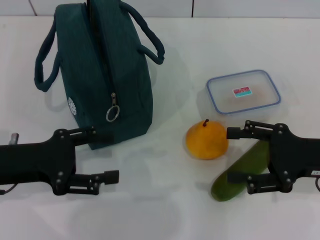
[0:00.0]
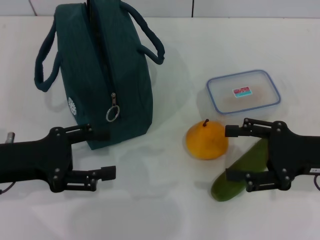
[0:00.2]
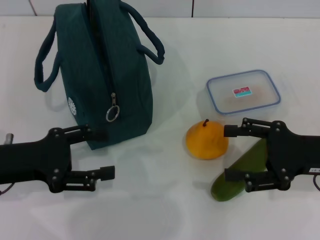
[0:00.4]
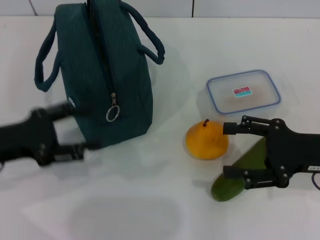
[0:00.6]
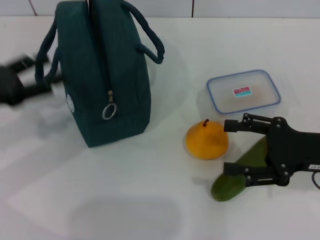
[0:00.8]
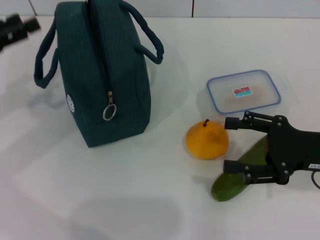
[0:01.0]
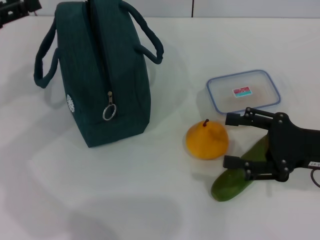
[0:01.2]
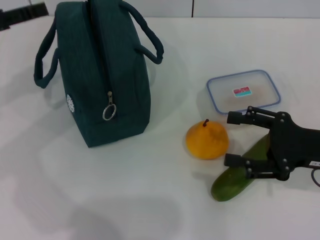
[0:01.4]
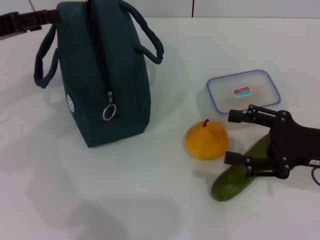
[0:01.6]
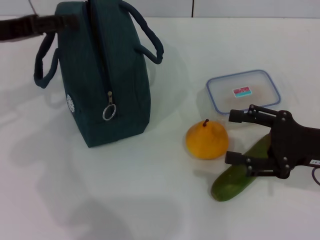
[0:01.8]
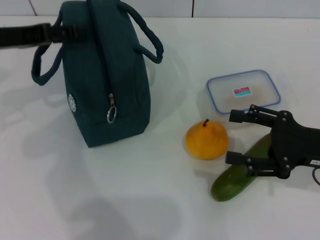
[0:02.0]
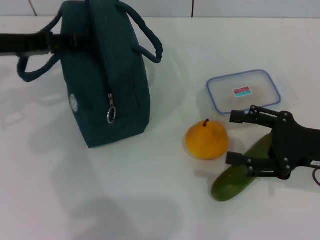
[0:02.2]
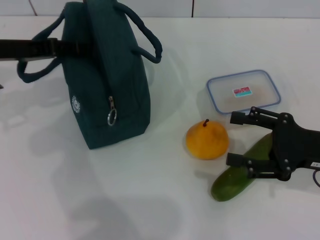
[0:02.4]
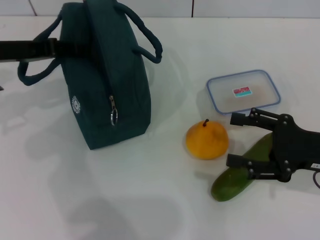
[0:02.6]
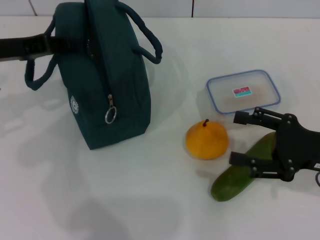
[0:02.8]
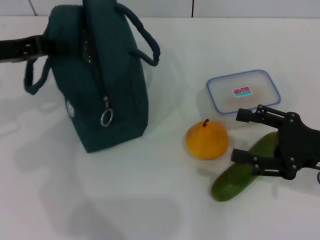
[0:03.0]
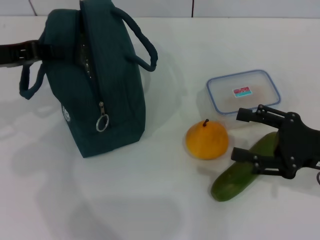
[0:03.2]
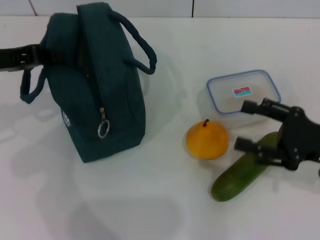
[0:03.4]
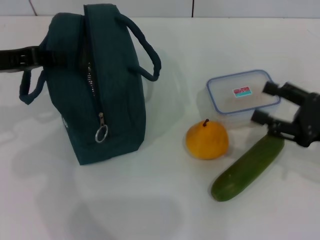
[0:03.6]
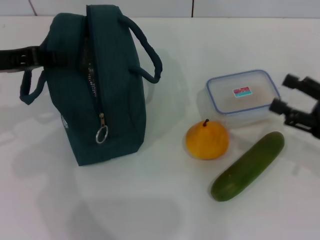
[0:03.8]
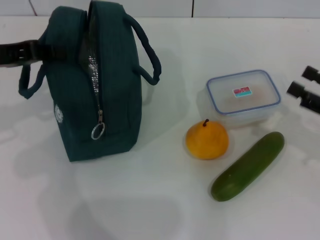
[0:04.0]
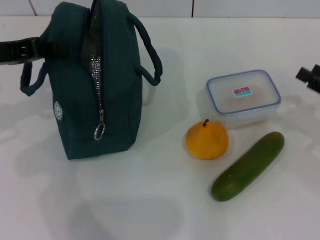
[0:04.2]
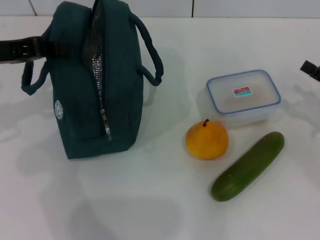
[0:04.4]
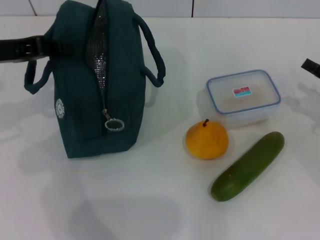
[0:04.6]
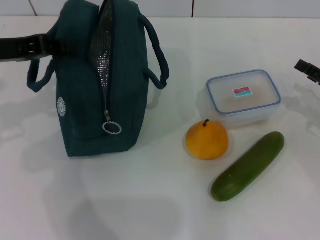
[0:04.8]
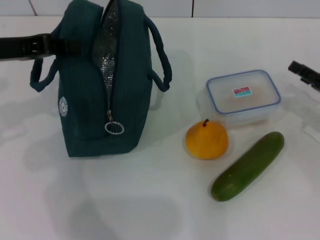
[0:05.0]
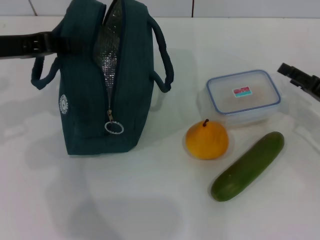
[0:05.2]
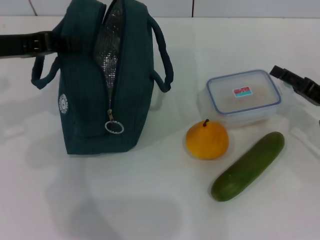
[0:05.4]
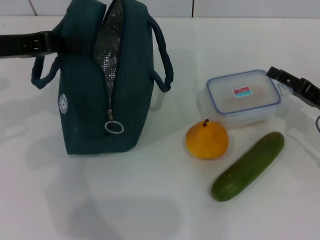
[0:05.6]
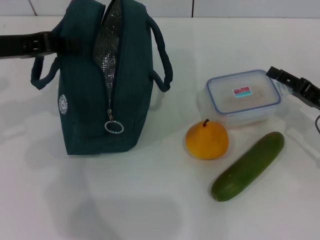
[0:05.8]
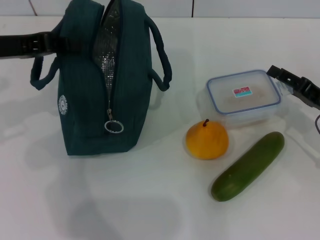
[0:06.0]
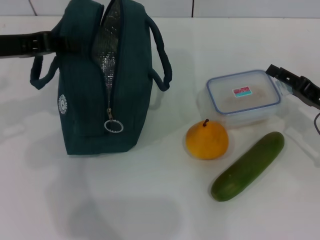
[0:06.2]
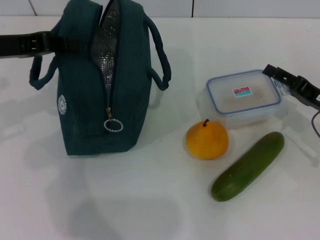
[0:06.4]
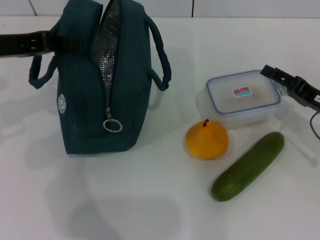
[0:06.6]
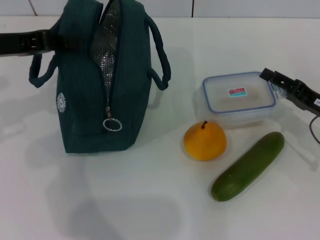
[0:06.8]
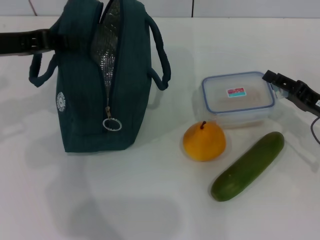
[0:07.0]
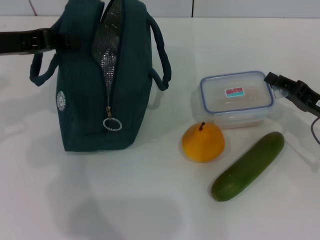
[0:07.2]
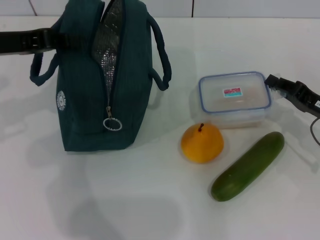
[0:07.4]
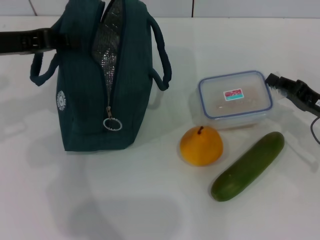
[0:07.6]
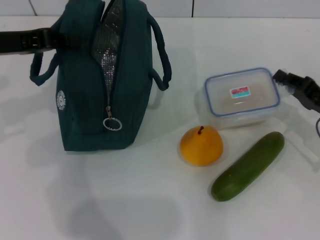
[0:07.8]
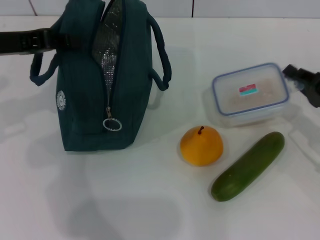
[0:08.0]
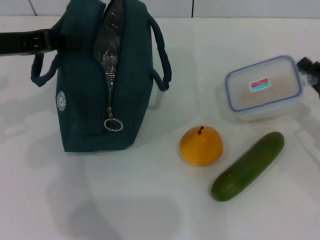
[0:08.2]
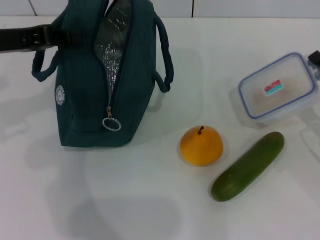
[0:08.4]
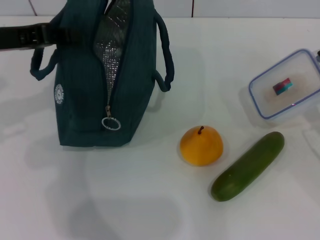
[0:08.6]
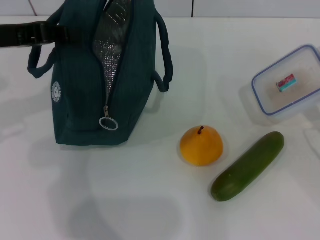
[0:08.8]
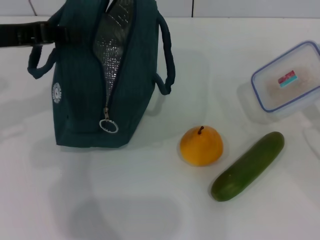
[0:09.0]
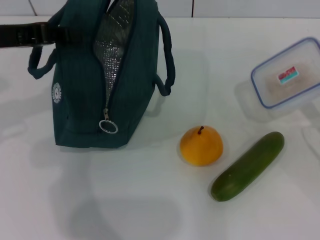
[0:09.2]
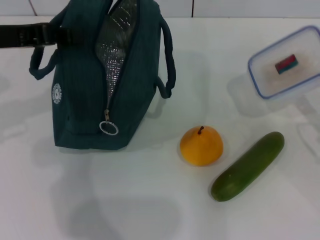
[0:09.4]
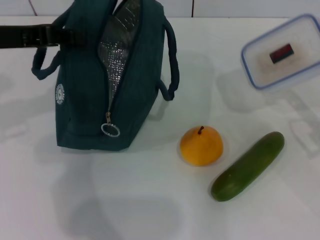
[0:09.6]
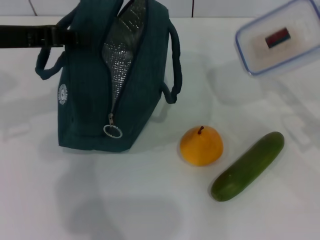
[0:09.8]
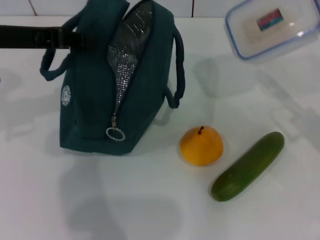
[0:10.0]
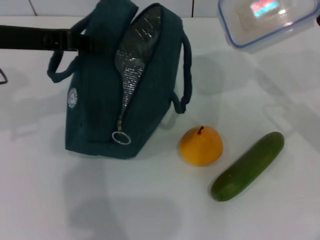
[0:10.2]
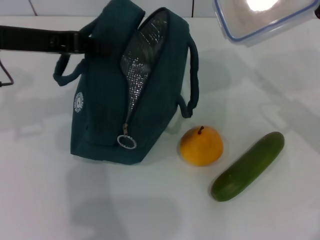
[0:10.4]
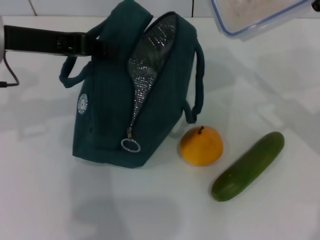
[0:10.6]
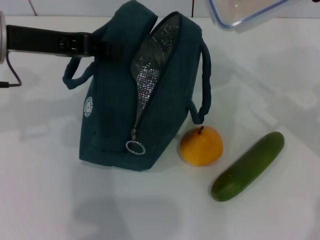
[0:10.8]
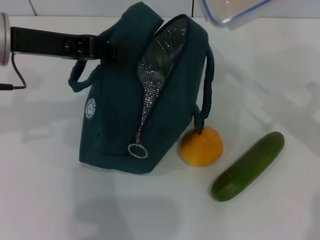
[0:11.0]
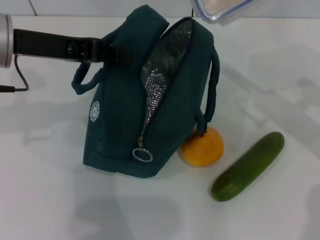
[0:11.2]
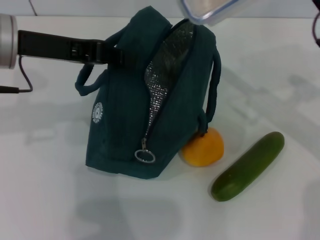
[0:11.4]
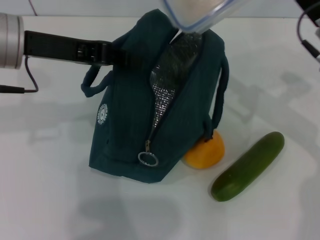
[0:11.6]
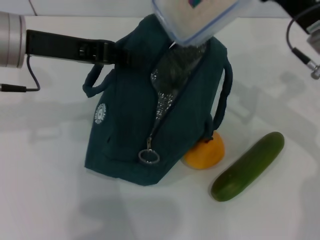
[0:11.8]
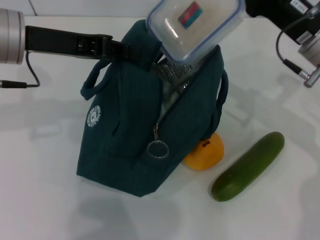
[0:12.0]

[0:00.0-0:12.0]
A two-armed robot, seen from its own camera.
Step, 0:00.0 to 0:03.6: Hold the lunch bag with your left hand.
Step, 0:03.8 to 0:07.4: Pick up the lunch box with your right hand.
0:00.0 to 0:01.6: The left gripper heads forward and upward, covering approximately 15 cm.
0:01.6 to 0:03.0: The left gripper closes its fingers.
0:03.0 to 0:04.4: The right gripper heads to the right, covering some 5 cm.
0:04.4 to 0:06.0: The right gripper moves approximately 5 cm.
0:06.0 to 0:07.6: The right gripper closes its fingers.
0:09.0 to 0:10.4: The right gripper is displaced upward and to the left by approximately 10 cm.
0:10.4 to 0:12.0: The right gripper shifts approximately 5 cm to the left.

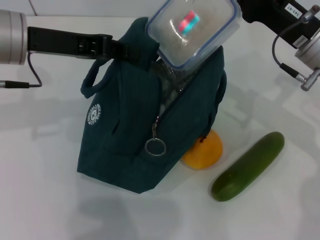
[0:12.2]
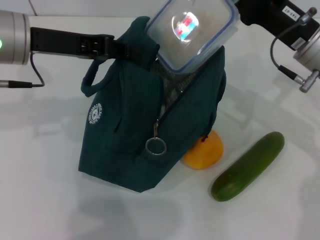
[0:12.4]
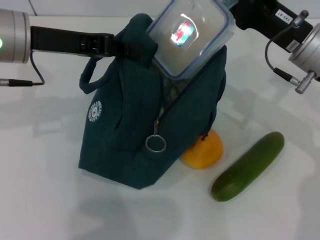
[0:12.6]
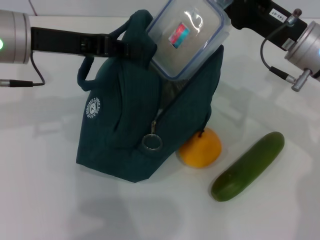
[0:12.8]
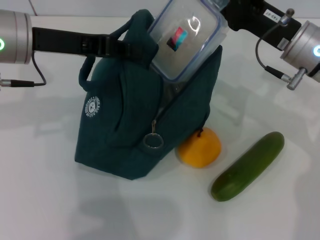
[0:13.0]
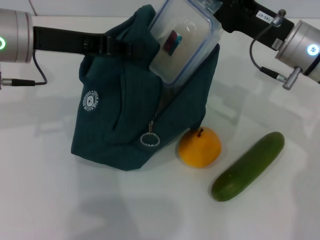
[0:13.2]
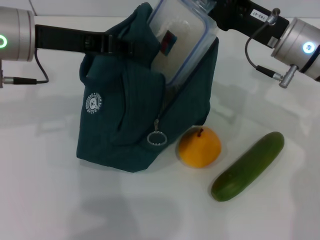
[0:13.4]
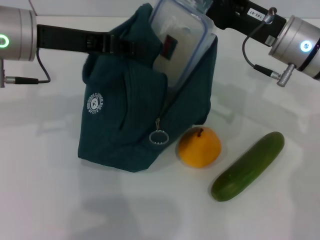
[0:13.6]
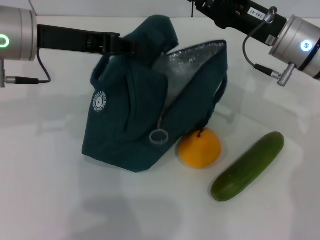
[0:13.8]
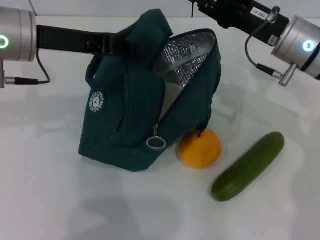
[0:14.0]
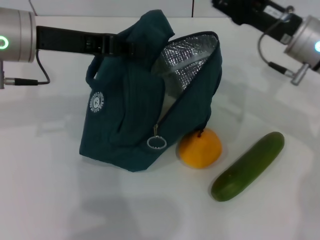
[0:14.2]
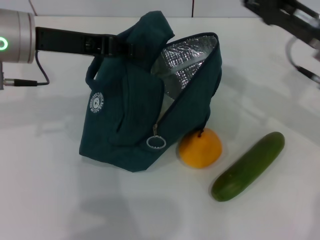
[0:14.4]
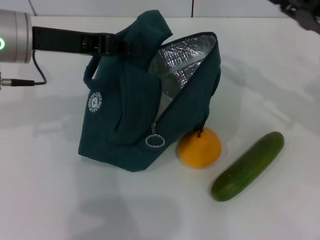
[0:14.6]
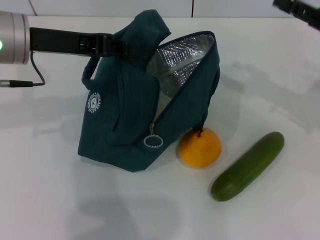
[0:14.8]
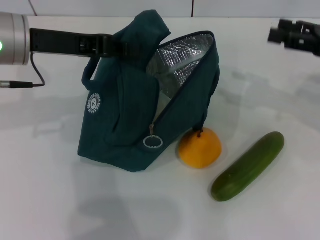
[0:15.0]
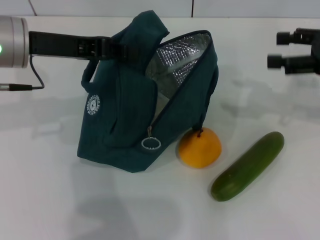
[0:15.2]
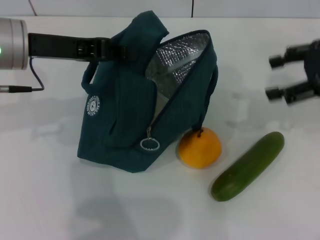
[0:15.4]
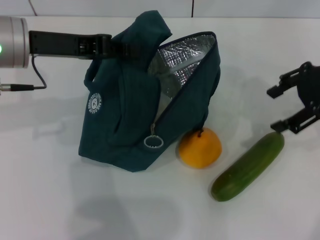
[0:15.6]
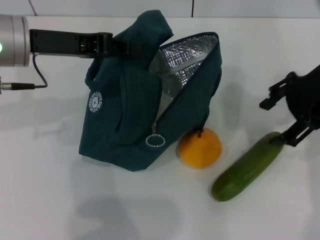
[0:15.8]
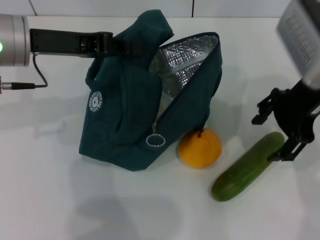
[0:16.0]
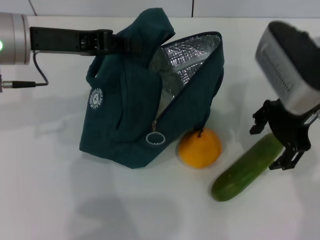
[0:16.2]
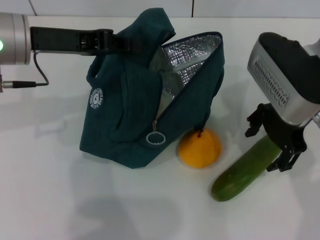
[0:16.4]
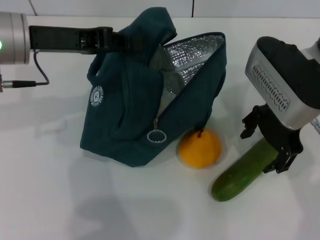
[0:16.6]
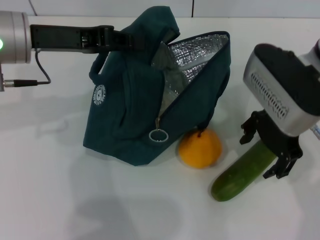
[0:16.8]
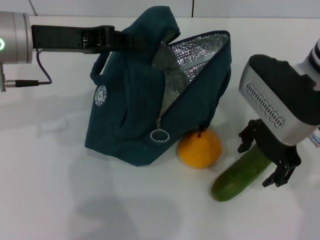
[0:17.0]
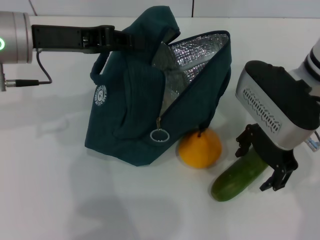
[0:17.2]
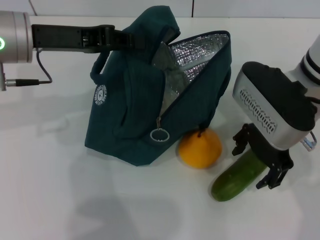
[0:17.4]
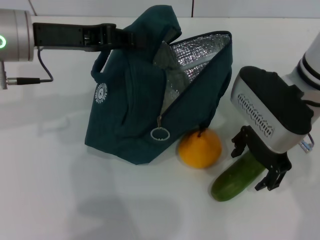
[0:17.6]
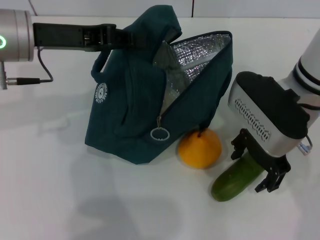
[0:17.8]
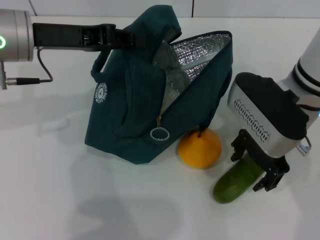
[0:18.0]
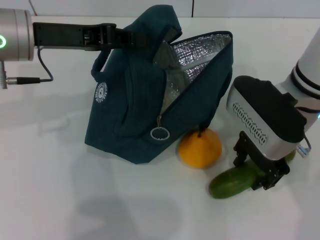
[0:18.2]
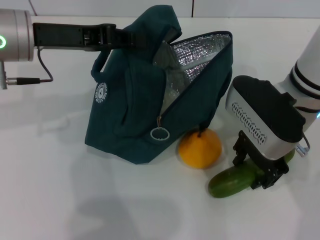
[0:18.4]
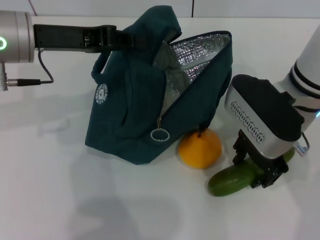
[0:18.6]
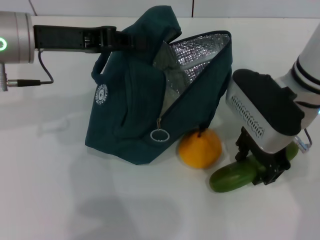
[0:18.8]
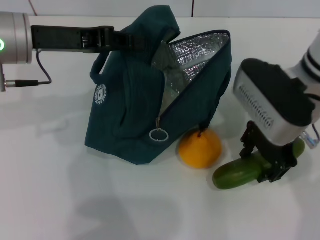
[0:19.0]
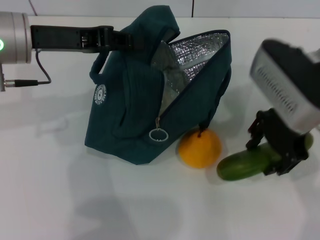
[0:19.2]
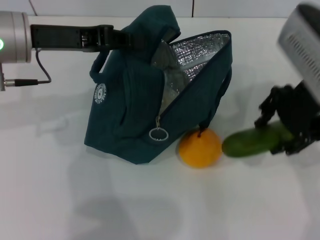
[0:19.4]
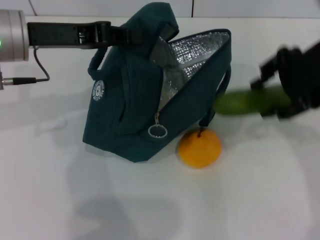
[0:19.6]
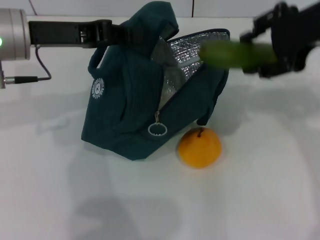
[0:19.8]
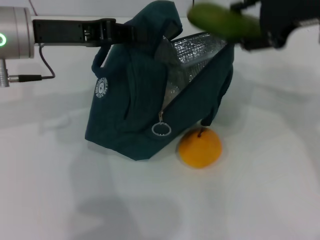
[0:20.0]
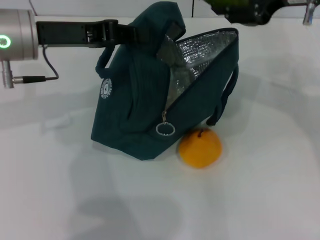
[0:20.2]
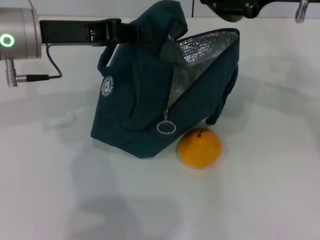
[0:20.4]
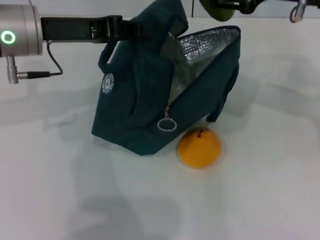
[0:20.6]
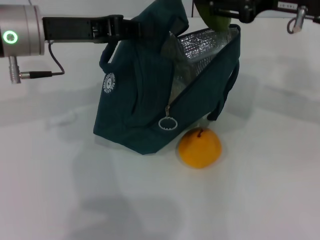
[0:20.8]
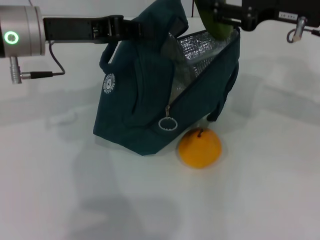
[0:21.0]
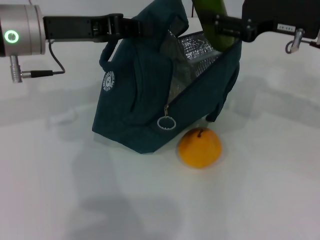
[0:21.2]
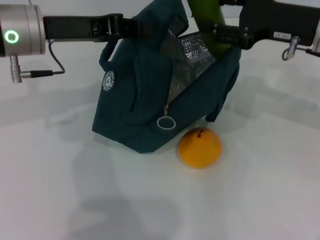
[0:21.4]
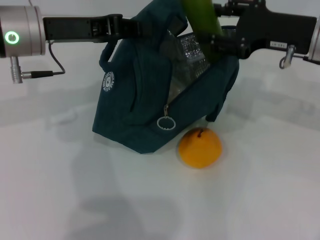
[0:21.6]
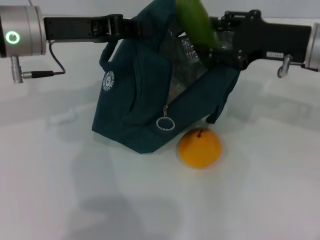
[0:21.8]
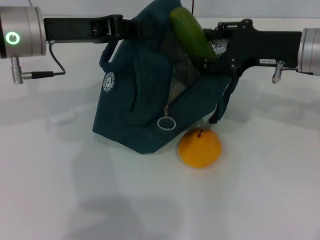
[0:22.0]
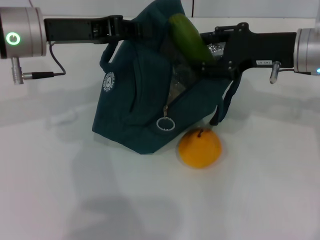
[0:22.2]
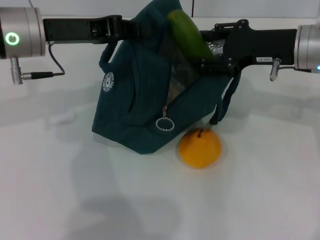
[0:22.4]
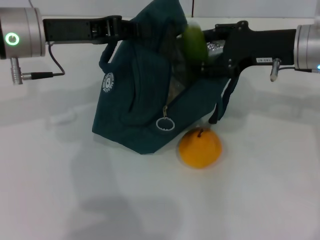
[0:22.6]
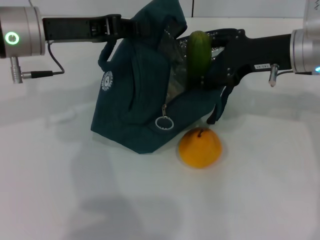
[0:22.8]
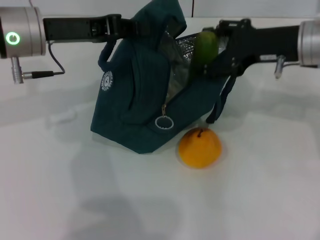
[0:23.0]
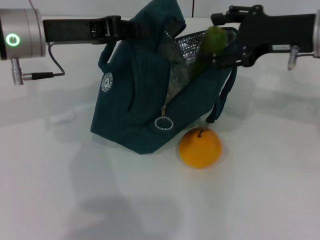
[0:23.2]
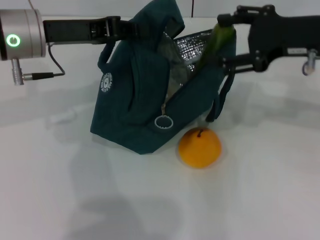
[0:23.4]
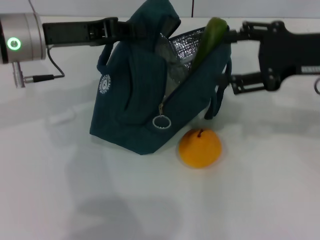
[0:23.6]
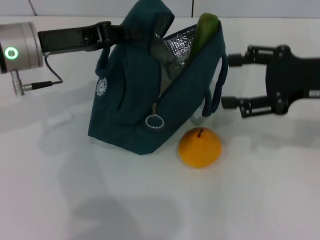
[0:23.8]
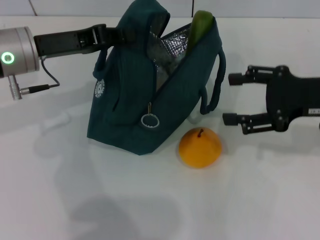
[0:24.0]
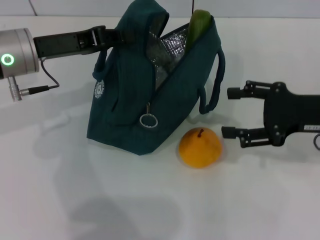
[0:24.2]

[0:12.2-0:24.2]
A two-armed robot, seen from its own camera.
Step, 0:14.2 to 0:18.4: Pick up the cucumber with your right hand.
Step, 0:18.6 to 0:23.4: Put the cucumber into the lunch bag with your right hand.
0:13.8 to 0:15.2: The right gripper goes approximately 15 cm to the right, and opens.
0:15.2 to 0:16.6: The right gripper goes some 15 cm to the left.
0:16.6 to 0:18.2: The grippers stay close to where they were, moving slightly.
0:18.2 to 0:19.8: The right gripper heads upward and to the right, covering some 15 cm.
0:19.8 to 0:21.2: The right gripper moves downward, roughly 10 cm.
0:21.2 to 0:22.6: The grippers stay close to where they were, moving slightly.
0:22.6 to 0:24.2: The right gripper goes about 10 cm backward and to the right.
